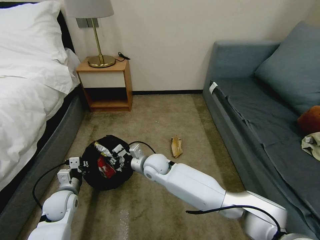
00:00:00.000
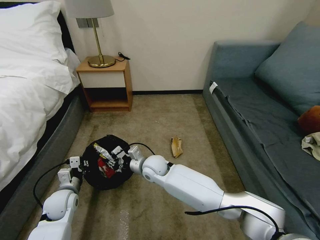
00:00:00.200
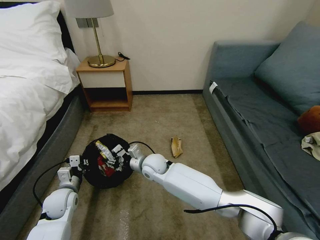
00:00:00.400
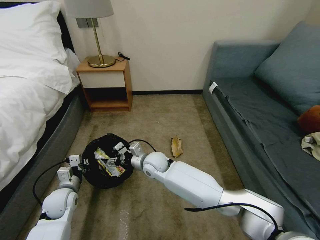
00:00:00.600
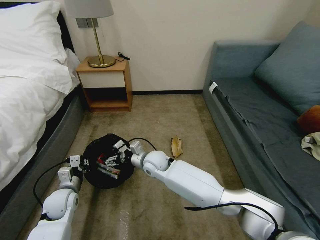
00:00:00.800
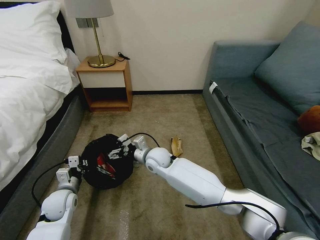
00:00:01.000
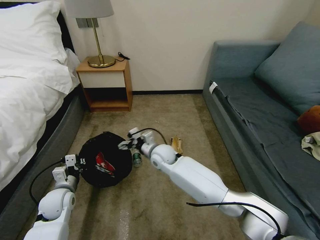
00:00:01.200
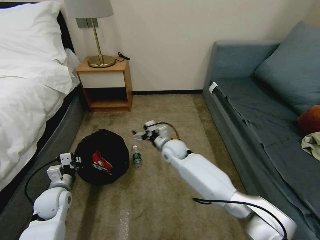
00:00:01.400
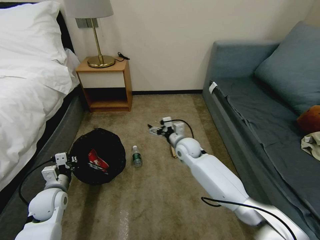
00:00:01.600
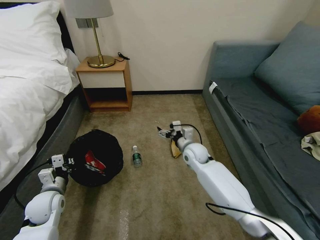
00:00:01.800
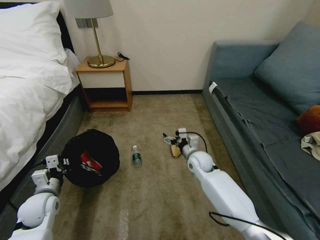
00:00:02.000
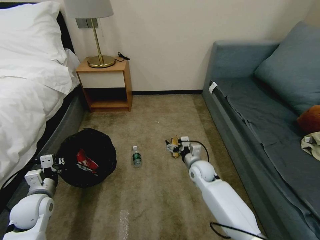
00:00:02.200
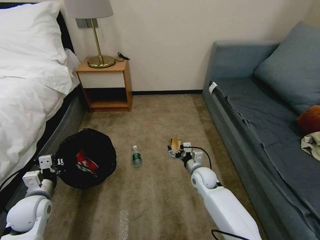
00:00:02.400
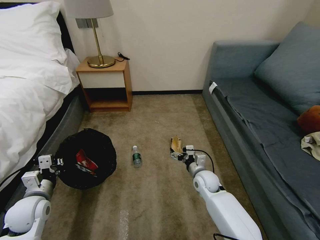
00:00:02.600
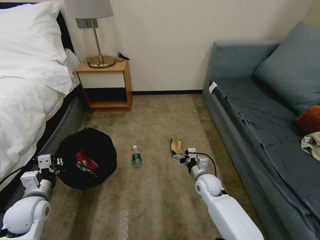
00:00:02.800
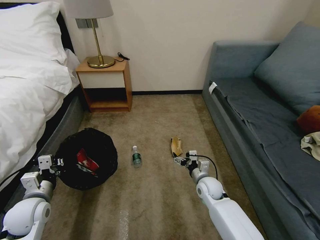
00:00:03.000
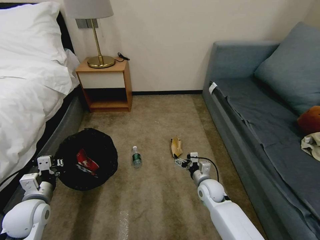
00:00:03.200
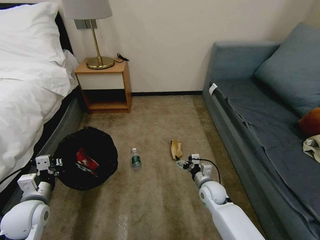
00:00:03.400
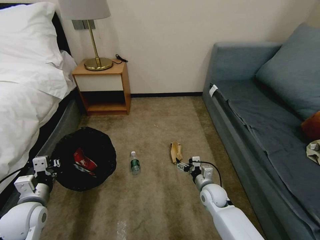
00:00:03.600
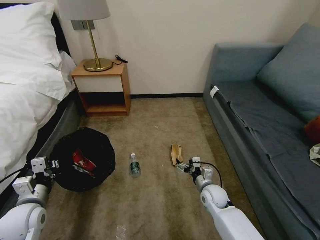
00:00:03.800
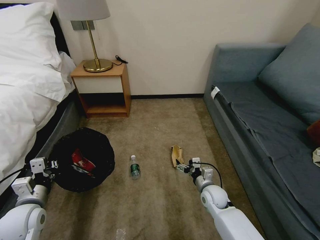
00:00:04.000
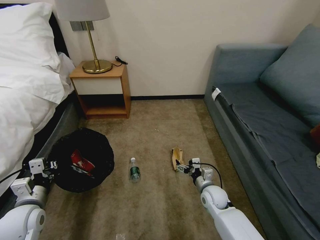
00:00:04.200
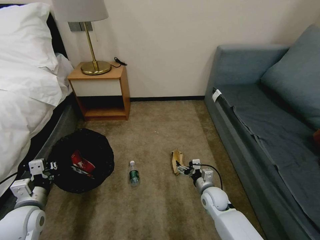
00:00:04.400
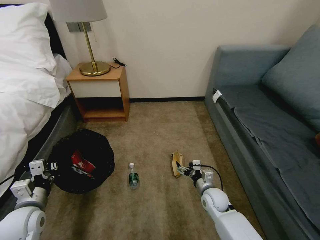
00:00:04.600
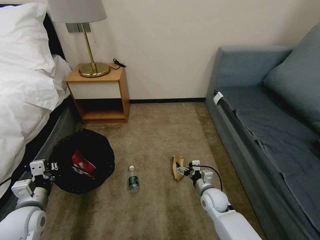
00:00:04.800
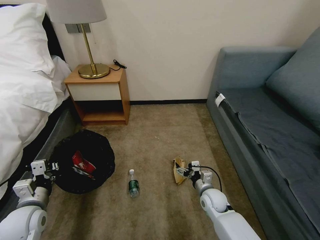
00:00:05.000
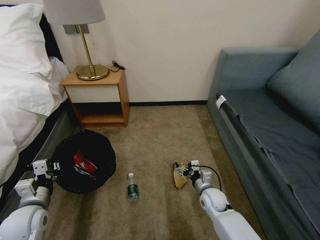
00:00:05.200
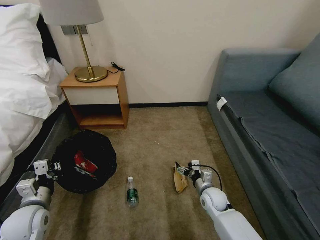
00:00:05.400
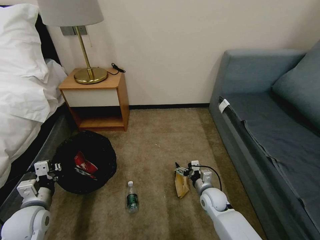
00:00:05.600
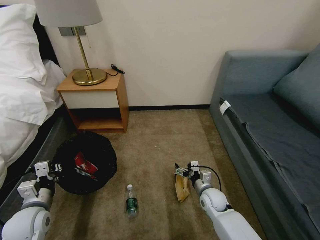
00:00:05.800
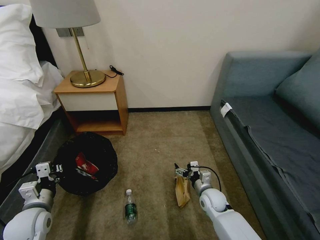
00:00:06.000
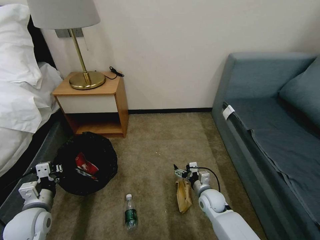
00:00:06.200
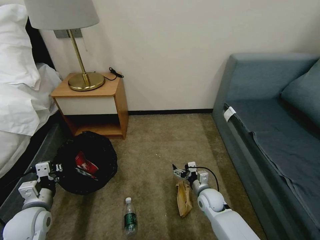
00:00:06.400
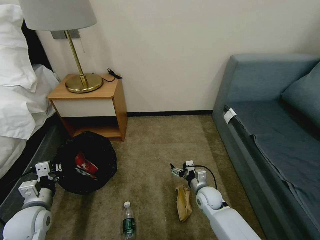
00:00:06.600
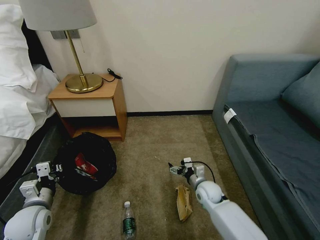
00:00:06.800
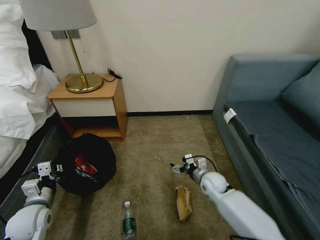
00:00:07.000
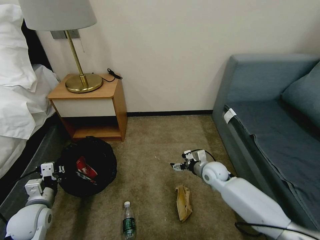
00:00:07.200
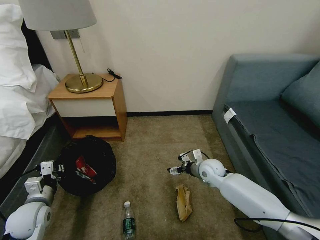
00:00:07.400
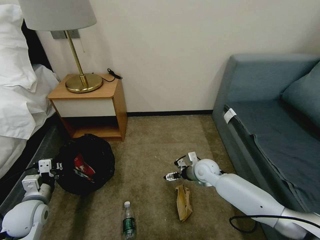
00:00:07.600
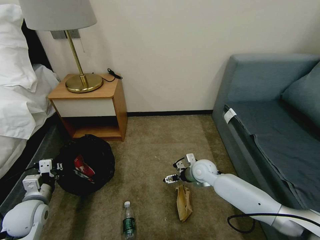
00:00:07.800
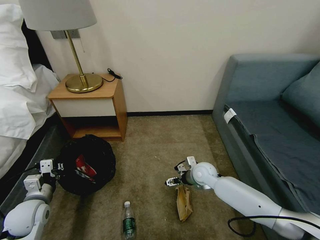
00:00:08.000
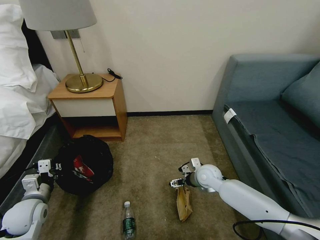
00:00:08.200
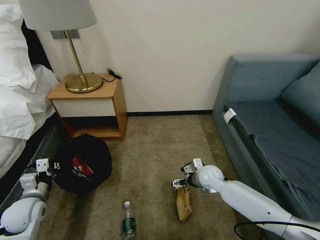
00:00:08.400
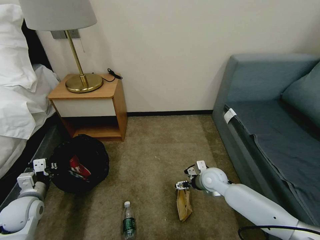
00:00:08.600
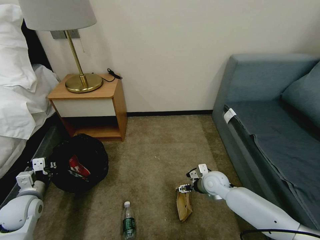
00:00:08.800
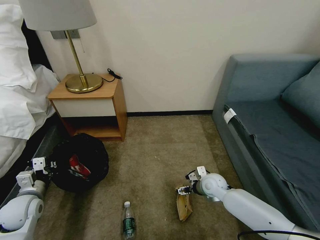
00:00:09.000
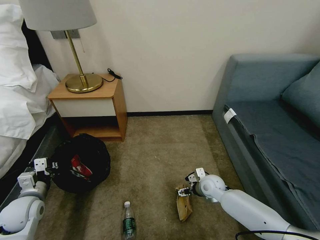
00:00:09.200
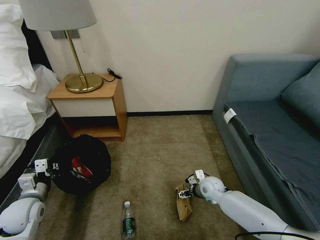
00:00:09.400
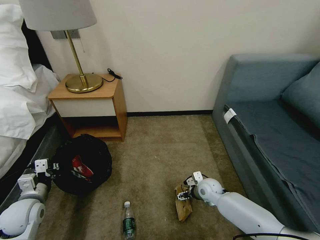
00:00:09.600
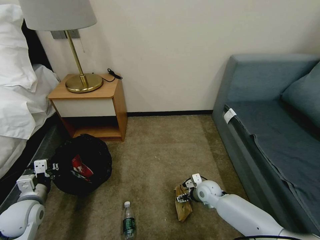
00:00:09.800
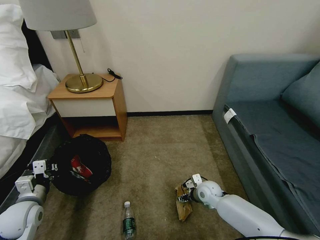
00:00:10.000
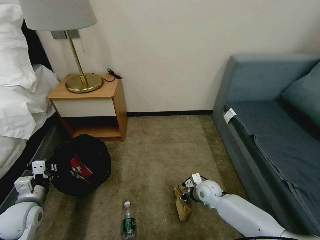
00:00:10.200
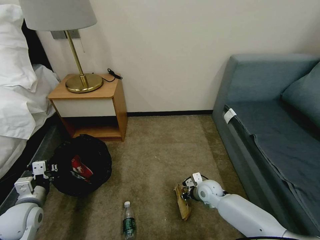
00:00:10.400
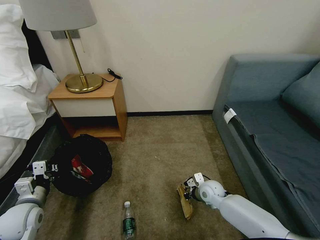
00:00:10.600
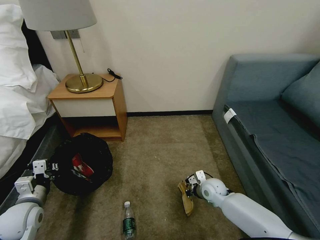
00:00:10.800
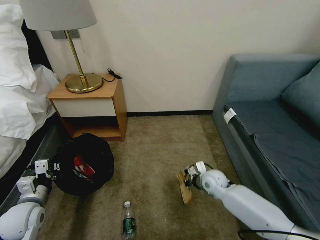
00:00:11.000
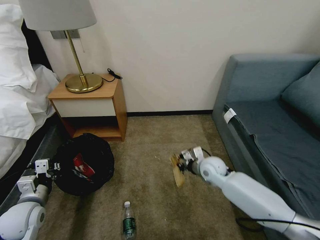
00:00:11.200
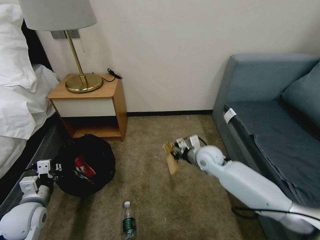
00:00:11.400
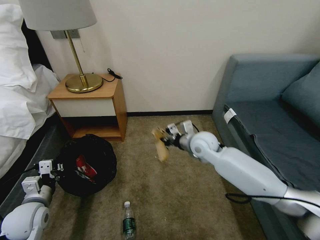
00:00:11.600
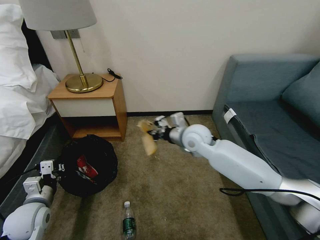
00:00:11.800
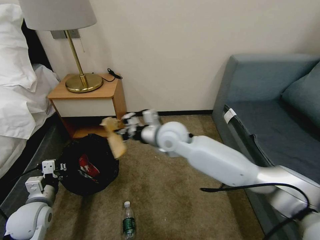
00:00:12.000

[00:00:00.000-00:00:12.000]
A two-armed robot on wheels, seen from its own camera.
Task of the whole recording: Pick up the trash bin, then pick up the garbage on the floor and place it into the trash bin.
00:00:00.000 to 00:00:01.600: The right gripper shifts some 15 cm to the right and forward, and opens its fingers.
00:00:01.600 to 00:00:03.000: The right gripper heads downward, backward and to the right, covering about 20 cm. The left gripper ends up approximately 5 cm from where it was.
00:00:06.000 to 00:00:07.600: The right gripper goes approximately 10 cm forward and upward.
00:00:07.600 to 00:00:09.000: The right gripper shifts by some 5 cm.
00:00:09.000 to 00:00:10.400: The right gripper closes its fingers.
00:00:10.400 to 00:00:12.000: The right gripper shifts approximately 30 cm upward and to the left.

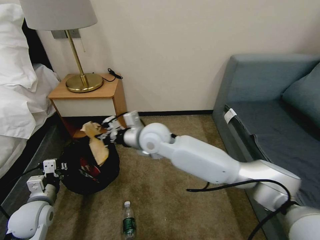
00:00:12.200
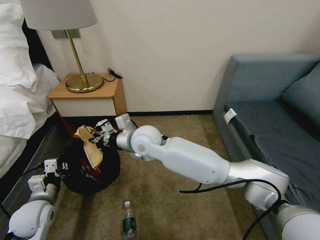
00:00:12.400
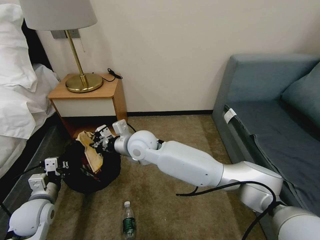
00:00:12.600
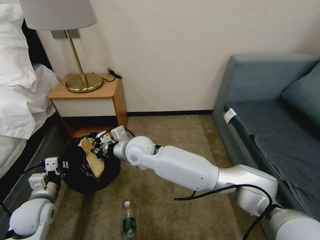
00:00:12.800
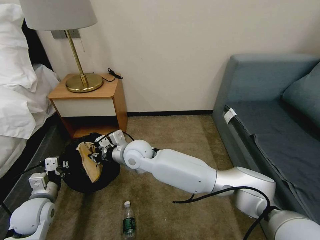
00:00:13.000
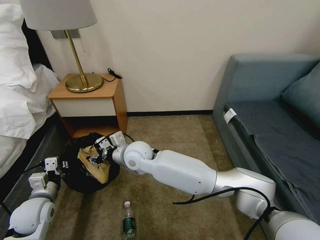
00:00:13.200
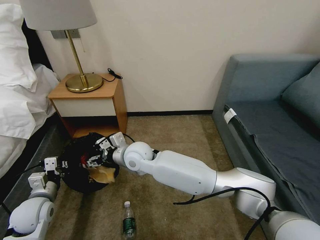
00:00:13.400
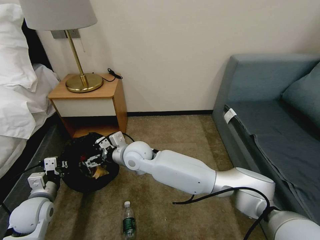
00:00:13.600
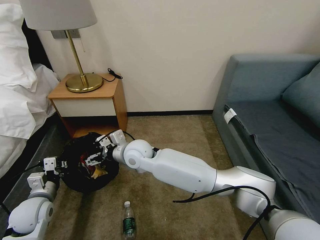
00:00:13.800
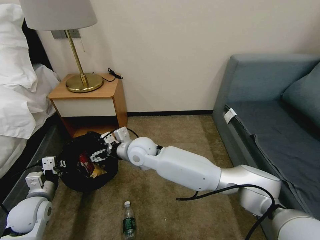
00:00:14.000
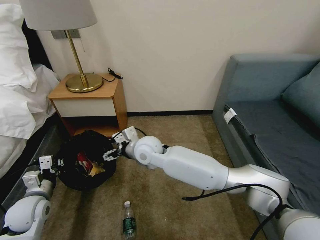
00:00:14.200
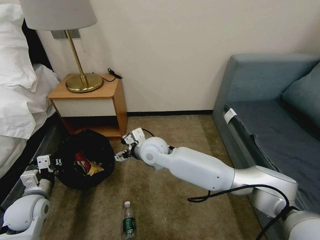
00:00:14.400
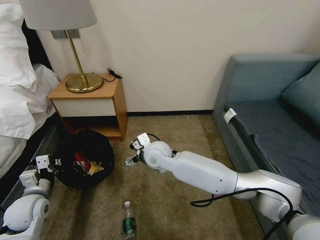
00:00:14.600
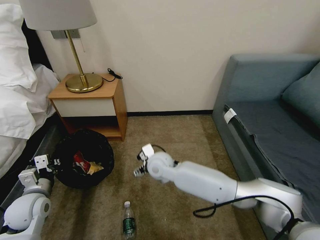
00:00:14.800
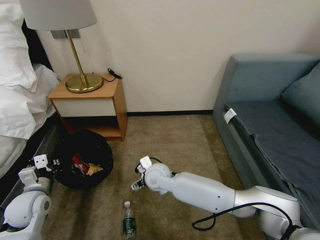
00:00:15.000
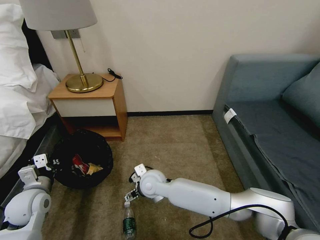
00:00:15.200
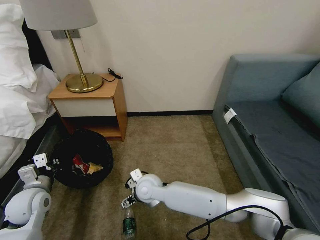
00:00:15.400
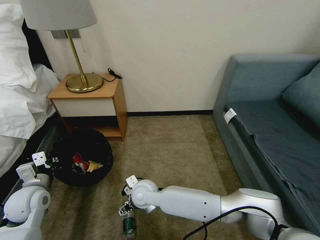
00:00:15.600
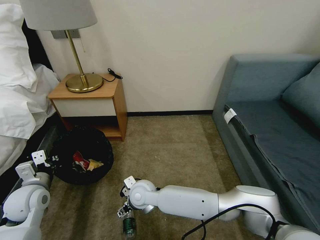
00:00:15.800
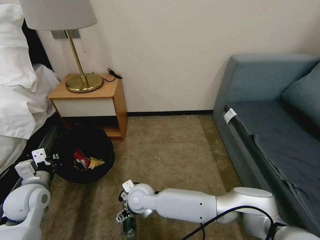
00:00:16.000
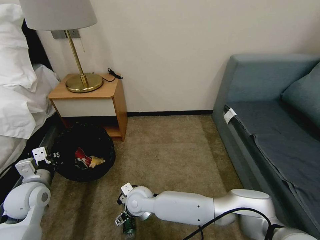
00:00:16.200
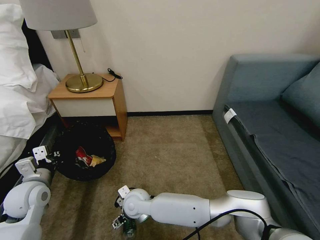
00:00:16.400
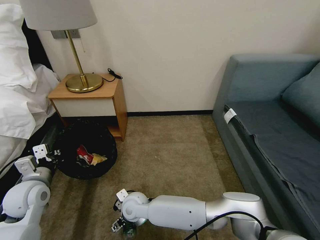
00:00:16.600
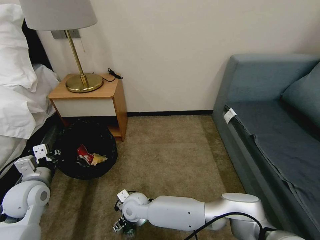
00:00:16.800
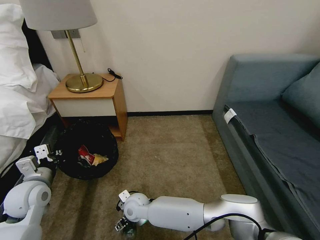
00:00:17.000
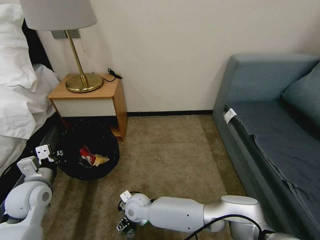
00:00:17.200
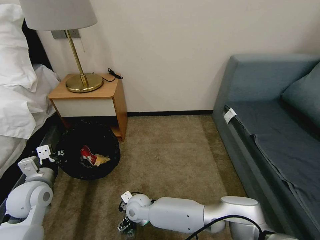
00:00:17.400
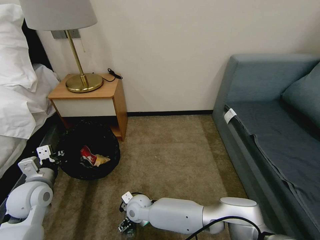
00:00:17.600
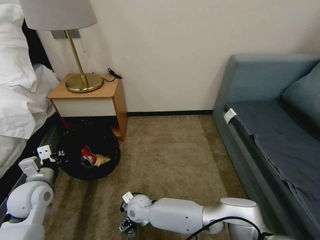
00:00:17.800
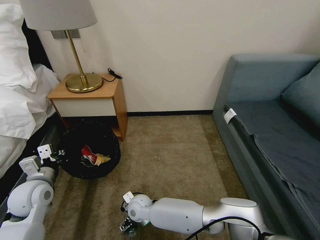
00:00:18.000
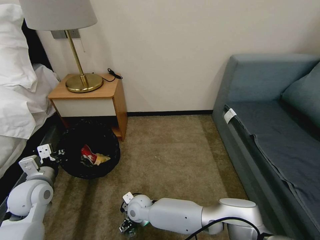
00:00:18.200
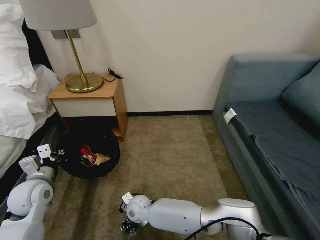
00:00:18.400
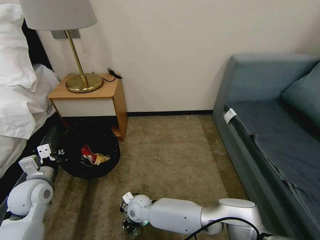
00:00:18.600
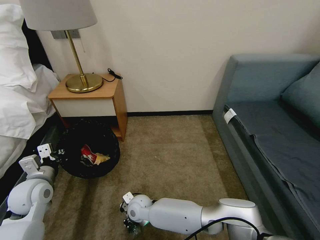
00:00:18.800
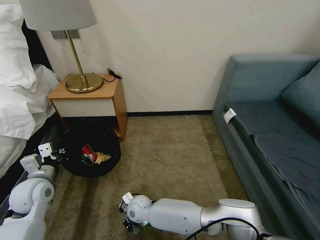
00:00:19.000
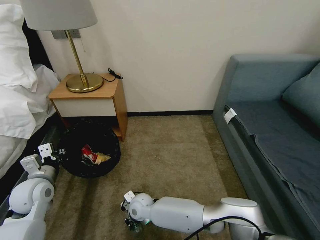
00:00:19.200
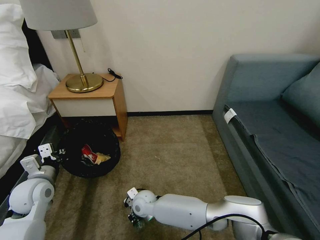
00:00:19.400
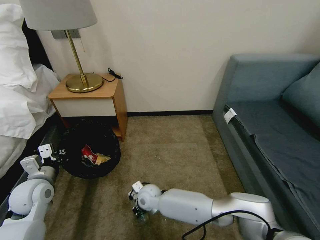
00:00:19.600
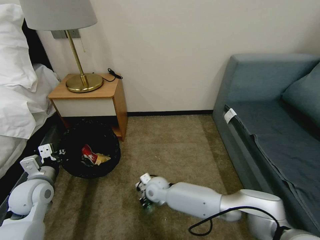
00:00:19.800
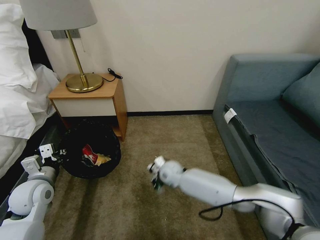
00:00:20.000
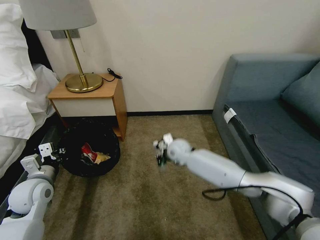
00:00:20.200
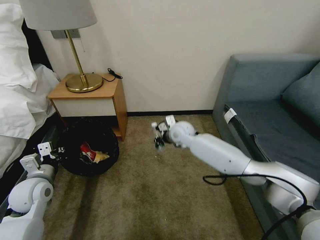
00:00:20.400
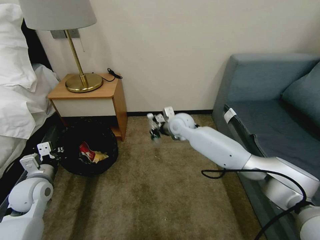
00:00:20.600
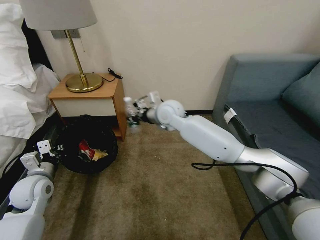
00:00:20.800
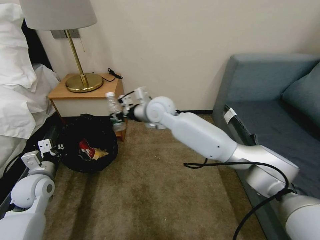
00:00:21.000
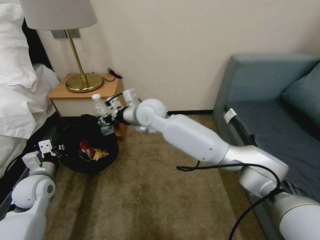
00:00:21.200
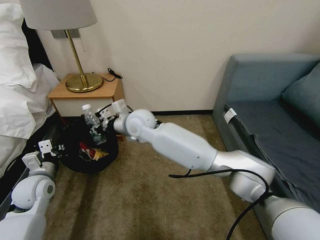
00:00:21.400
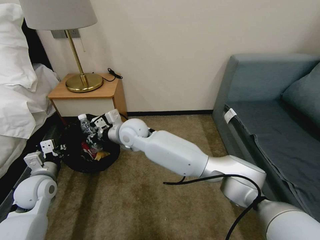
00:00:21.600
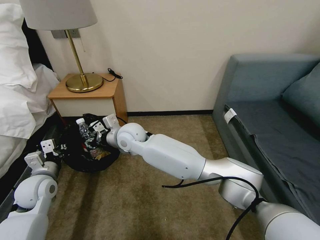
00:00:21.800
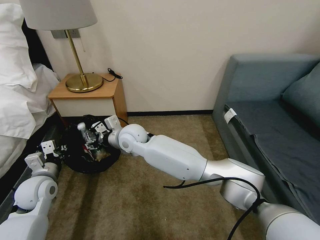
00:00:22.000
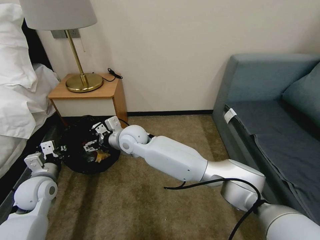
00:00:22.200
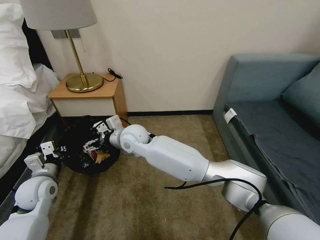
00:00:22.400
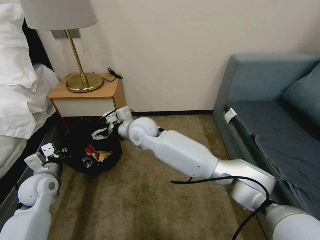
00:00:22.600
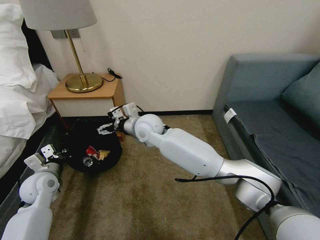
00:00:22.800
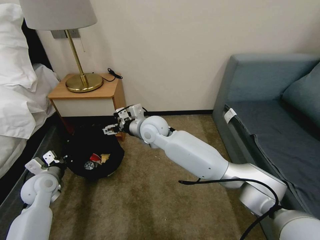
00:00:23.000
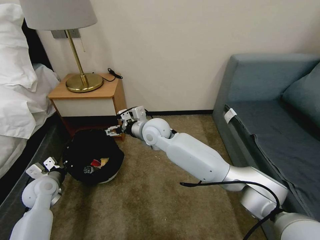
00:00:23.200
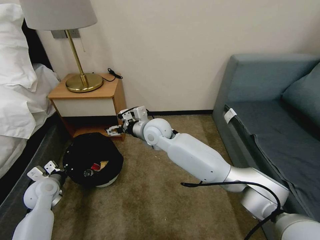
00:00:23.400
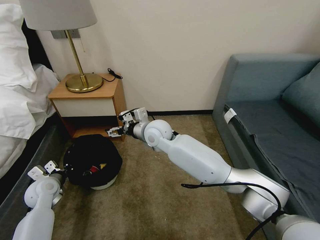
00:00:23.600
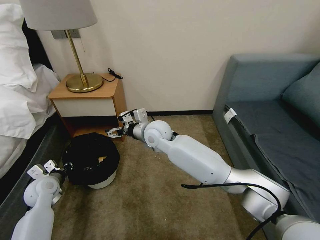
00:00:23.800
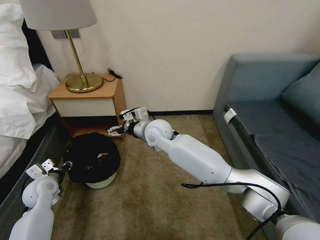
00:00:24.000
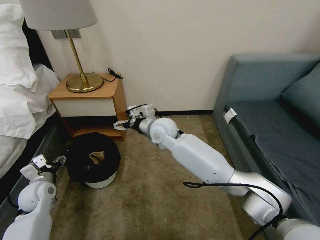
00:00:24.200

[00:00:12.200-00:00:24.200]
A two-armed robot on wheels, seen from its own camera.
Task of the whole recording: Pick up the trash bin, then pick up the garbage on the floor and place it into the trash bin.
00:00:12.200 to 00:00:13.800: The right gripper moves downward and to the left, approximately 10 cm, and opens its fingers.
00:00:13.800 to 00:00:15.200: The right gripper travels downward, to the right and backward by approximately 15 cm.
00:00:15.200 to 00:00:16.600: The right gripper goes some 10 cm to the left, downward and backward.
00:00:16.600 to 00:00:18.200: The right gripper heads downward, covering about 5 cm.
00:00:18.200 to 00:00:19.800: The right gripper moves to the right and forward, approximately 10 cm, and closes.
00:00:19.800 to 00:00:21.200: The right gripper goes about 30 cm upward.
00:00:21.200 to 00:00:22.600: The right gripper moves downward, approximately 5 cm, and opens.
00:00:22.600 to 00:00:24.200: The right gripper heads to the right, covering roughly 5 cm. Meanwhile the left gripper moves about 5 cm, and opens its fingers.
